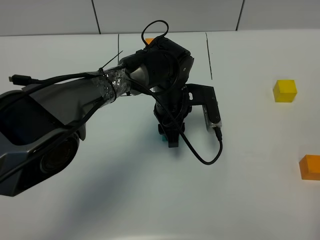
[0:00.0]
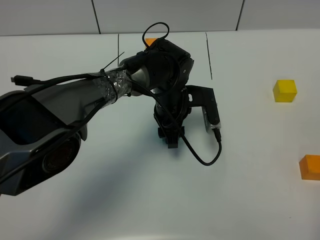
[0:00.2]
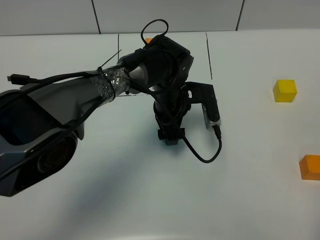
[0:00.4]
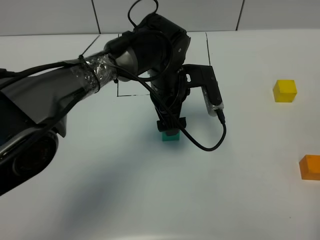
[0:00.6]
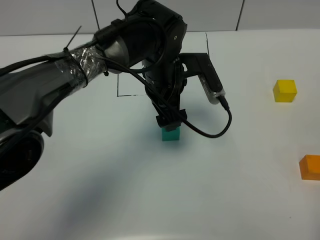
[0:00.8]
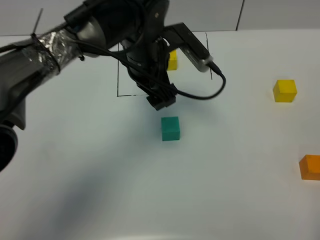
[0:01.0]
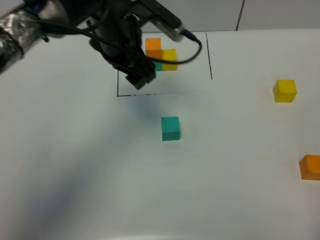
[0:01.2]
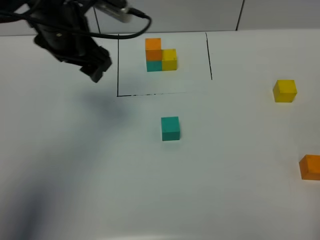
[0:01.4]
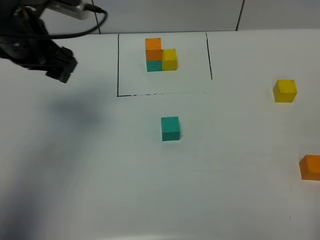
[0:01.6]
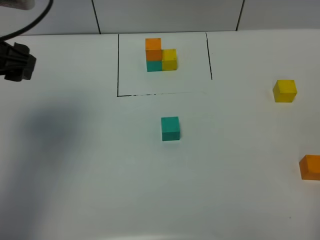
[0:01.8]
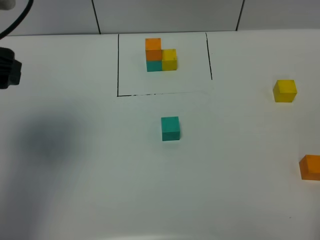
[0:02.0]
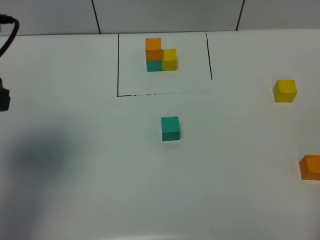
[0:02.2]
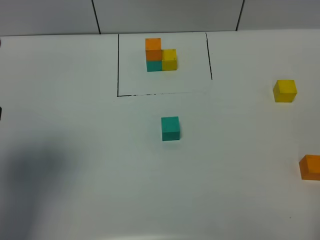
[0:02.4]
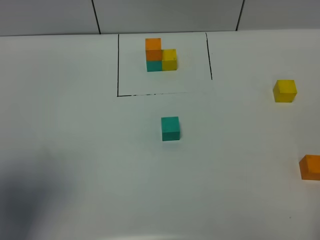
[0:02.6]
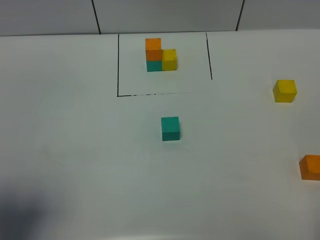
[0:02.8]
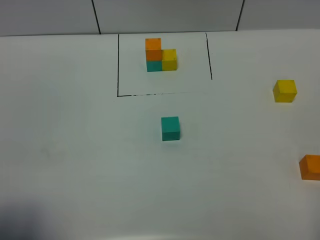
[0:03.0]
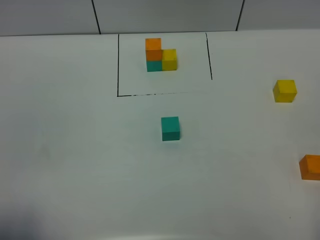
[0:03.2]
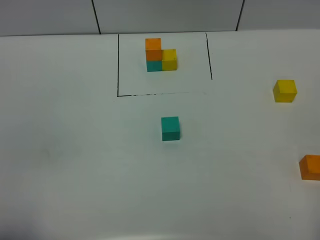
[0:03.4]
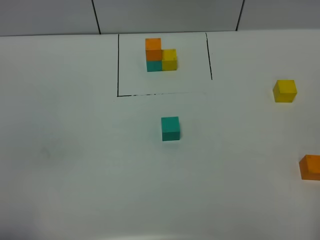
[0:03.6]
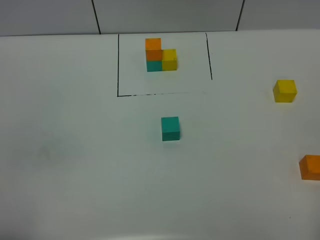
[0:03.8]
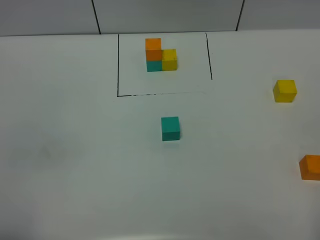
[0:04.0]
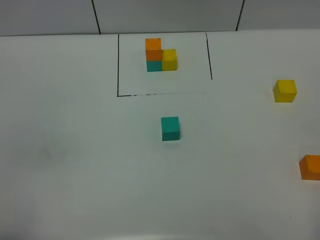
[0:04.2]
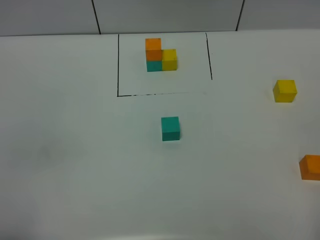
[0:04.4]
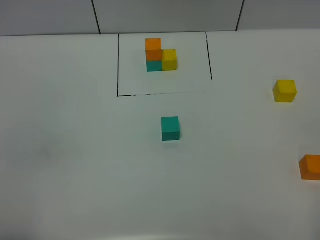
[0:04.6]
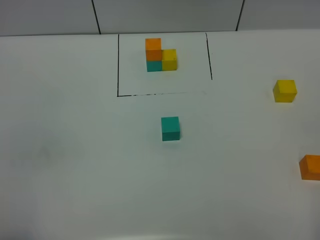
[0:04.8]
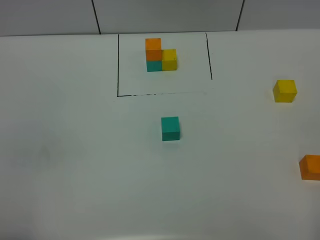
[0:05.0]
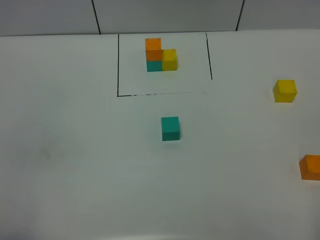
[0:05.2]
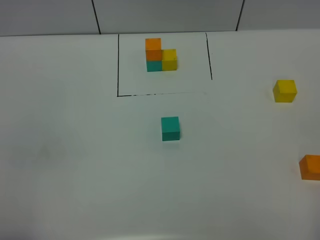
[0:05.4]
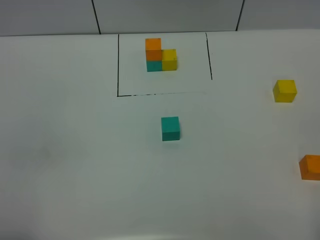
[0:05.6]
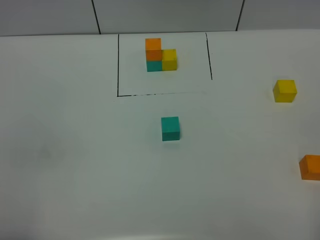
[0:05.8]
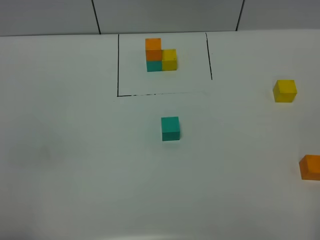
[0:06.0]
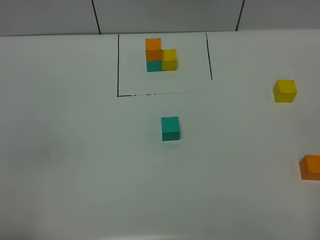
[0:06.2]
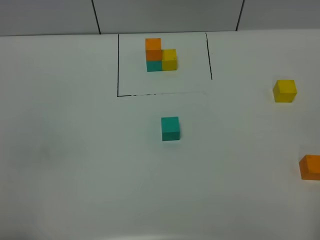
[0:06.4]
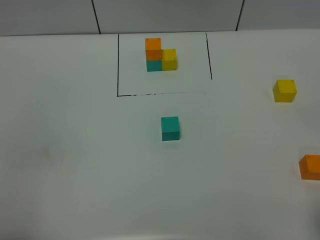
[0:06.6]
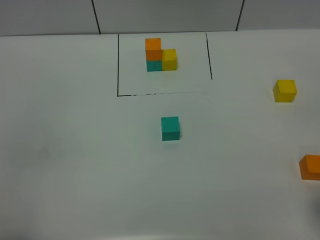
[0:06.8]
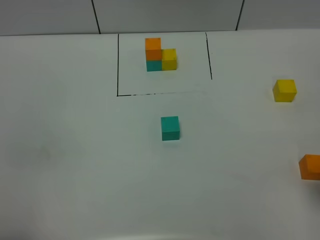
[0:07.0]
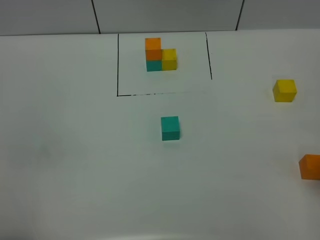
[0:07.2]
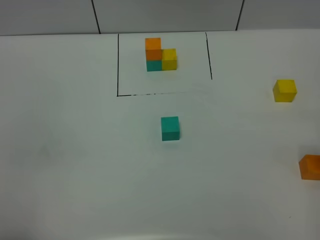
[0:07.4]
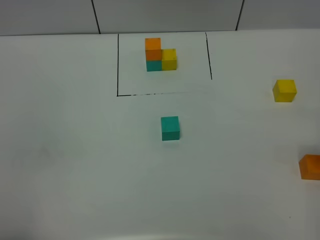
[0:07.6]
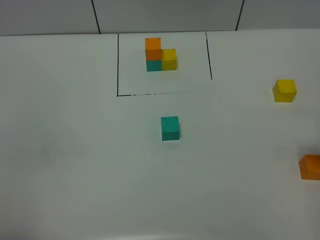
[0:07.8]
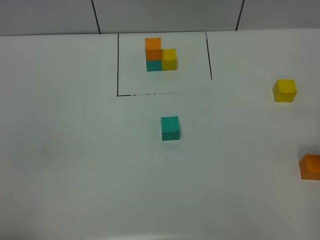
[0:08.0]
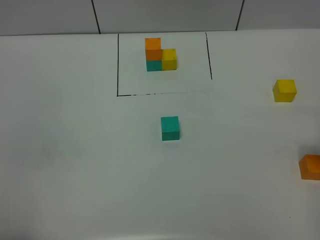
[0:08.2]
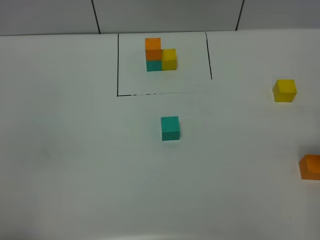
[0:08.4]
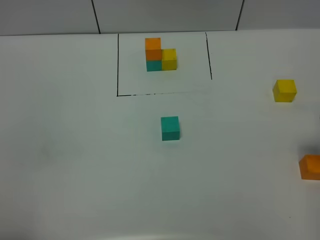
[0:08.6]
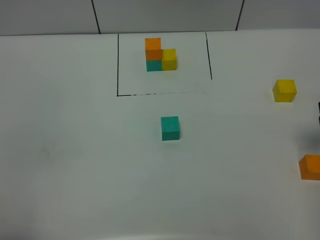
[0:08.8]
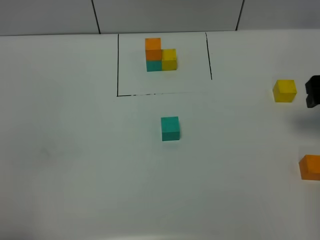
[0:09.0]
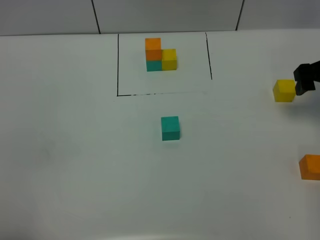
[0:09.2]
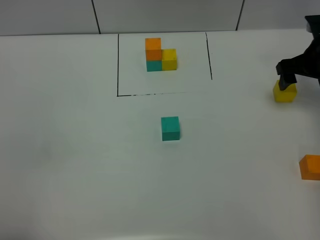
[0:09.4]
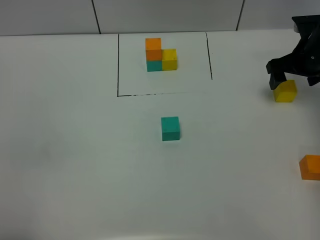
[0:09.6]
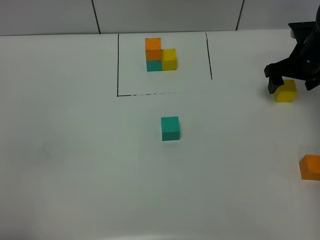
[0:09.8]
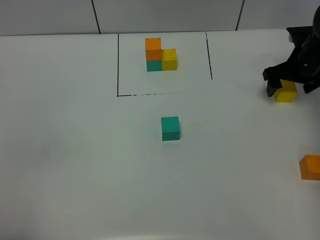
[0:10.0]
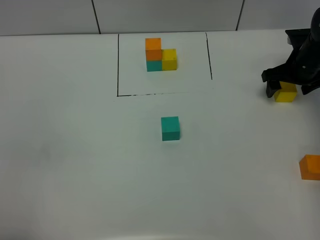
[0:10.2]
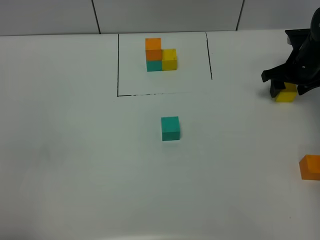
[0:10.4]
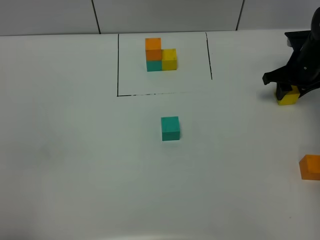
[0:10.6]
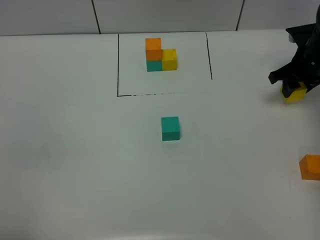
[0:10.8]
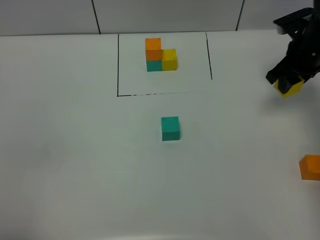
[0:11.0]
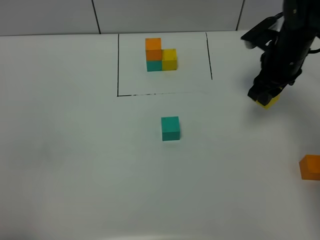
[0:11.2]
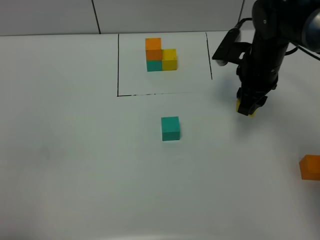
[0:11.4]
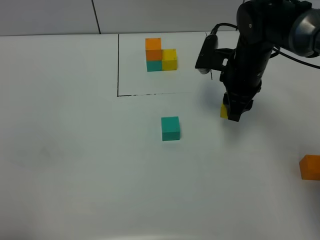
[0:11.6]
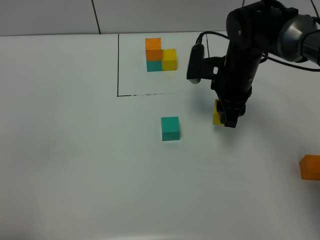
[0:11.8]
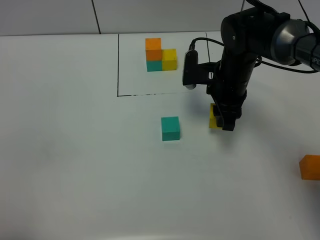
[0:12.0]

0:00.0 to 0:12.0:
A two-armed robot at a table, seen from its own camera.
Task of the whole recording: According to the building block template in front, assemble the scattered blocks together.
0:00.0 to 0:01.6: The left gripper moves to the left and upward, some 30 cm, and opens its fingers.
0:01.6 to 0:03.0: The left gripper is displaced backward by roughly 30 cm.
0:03.0 to 0:04.4: The left gripper heads backward, covering about 5 cm, and closes.
0:07.6 to 0:09.0: The right gripper moves forward, approximately 10 cm.
0:09.0 to 0:10.4: The right gripper goes approximately 15 cm forward and downward, and closes.
0:10.4 to 0:12.0: The right gripper shifts approximately 20 cm to the left and backward.

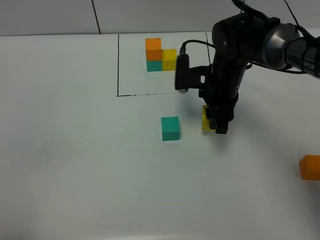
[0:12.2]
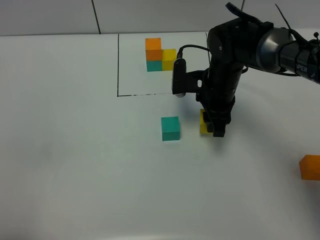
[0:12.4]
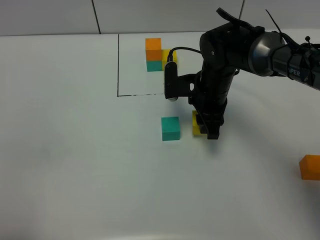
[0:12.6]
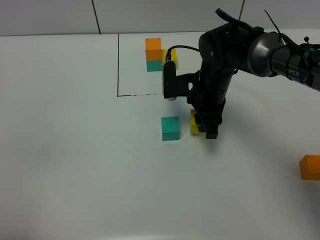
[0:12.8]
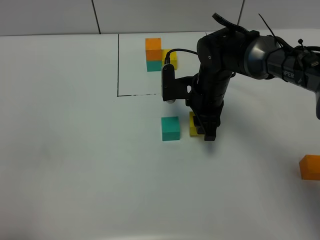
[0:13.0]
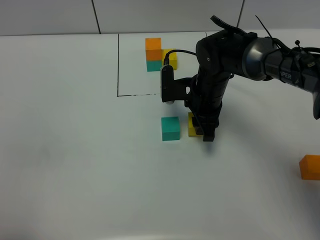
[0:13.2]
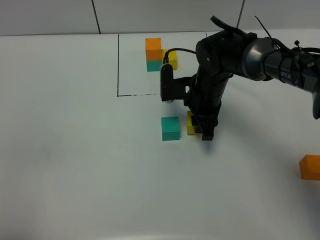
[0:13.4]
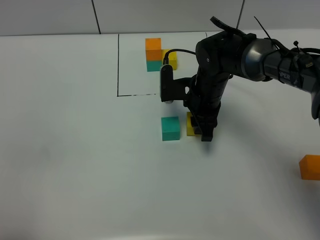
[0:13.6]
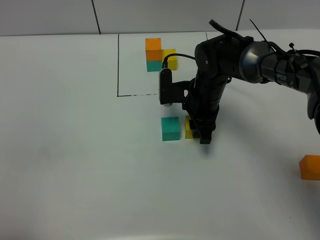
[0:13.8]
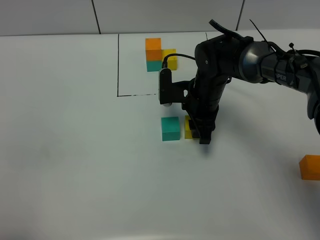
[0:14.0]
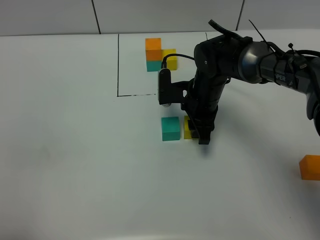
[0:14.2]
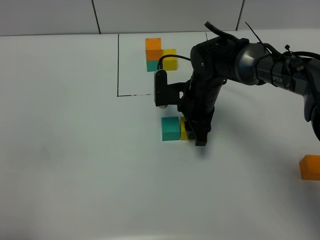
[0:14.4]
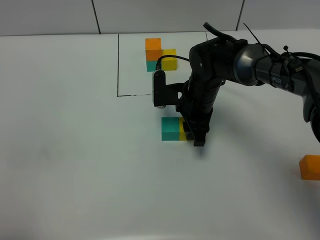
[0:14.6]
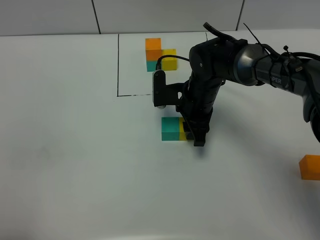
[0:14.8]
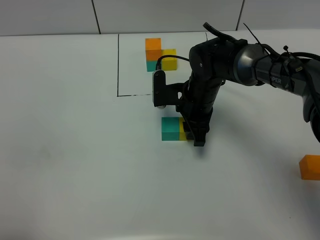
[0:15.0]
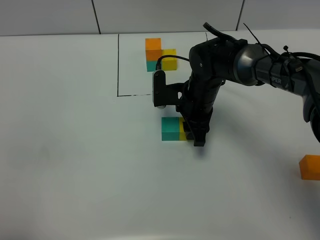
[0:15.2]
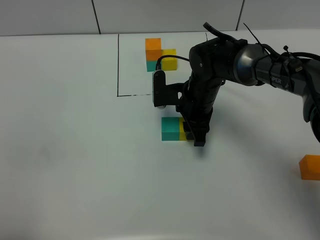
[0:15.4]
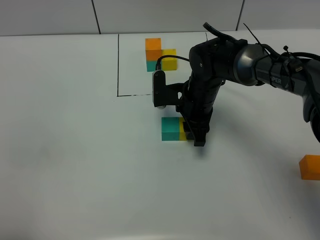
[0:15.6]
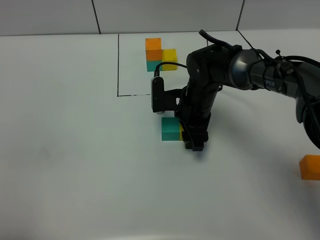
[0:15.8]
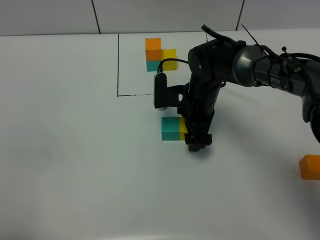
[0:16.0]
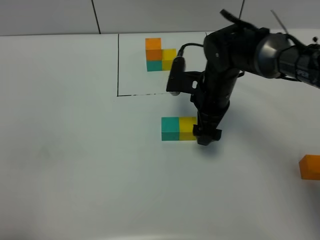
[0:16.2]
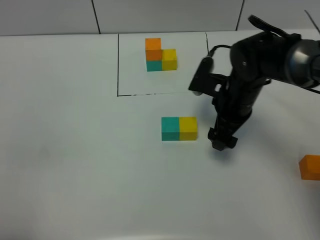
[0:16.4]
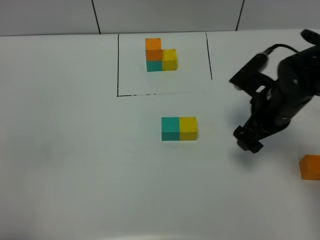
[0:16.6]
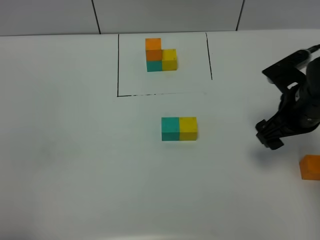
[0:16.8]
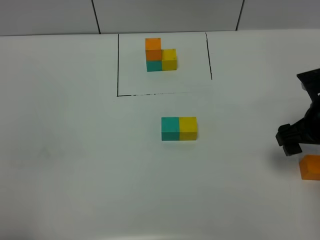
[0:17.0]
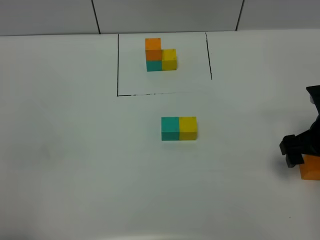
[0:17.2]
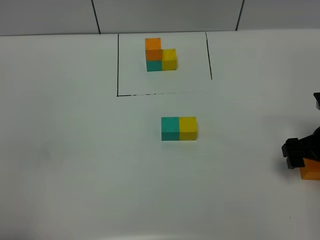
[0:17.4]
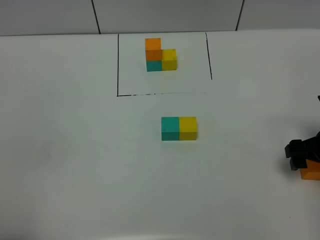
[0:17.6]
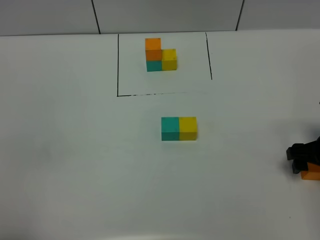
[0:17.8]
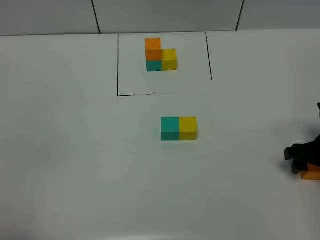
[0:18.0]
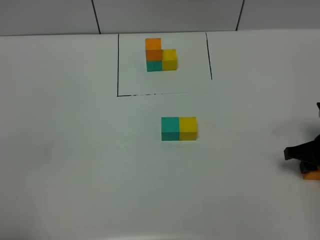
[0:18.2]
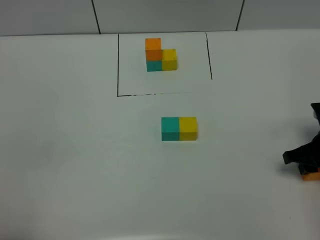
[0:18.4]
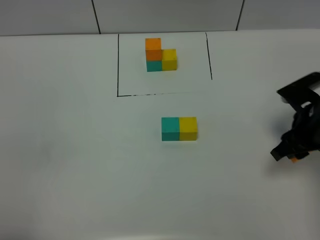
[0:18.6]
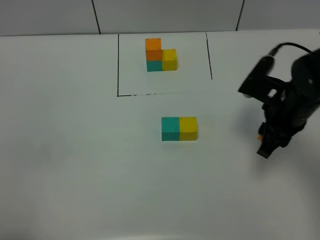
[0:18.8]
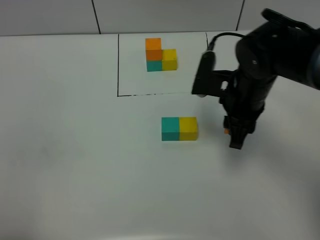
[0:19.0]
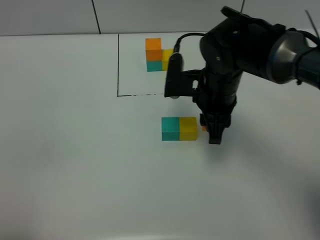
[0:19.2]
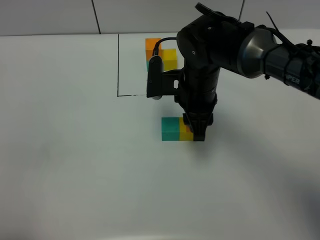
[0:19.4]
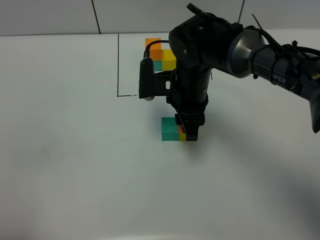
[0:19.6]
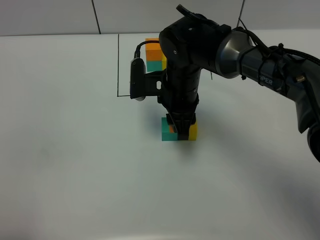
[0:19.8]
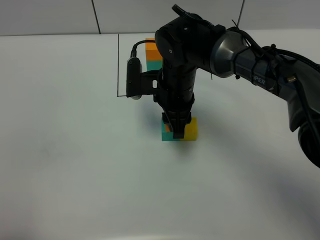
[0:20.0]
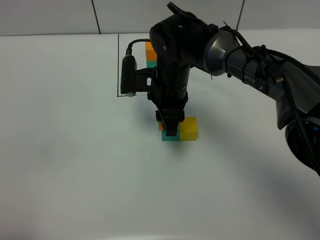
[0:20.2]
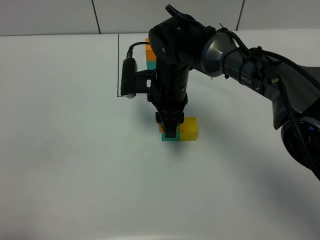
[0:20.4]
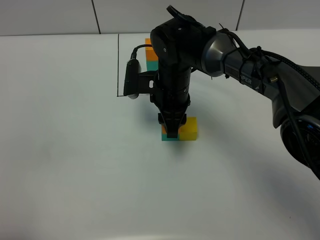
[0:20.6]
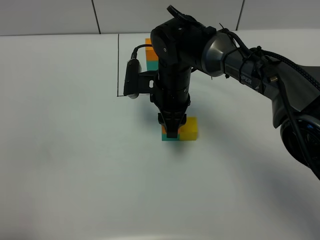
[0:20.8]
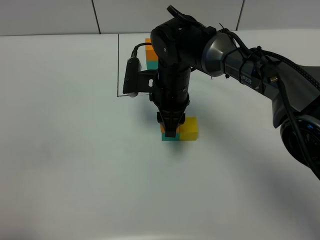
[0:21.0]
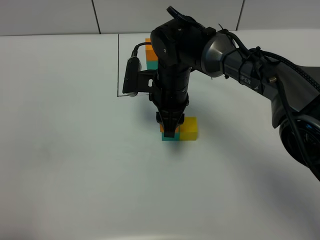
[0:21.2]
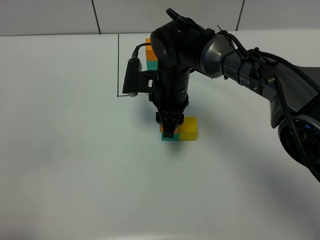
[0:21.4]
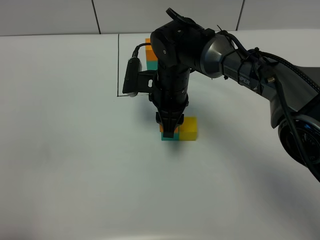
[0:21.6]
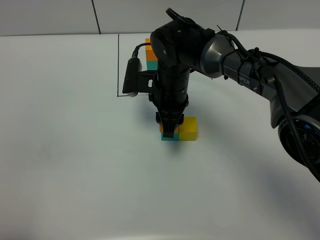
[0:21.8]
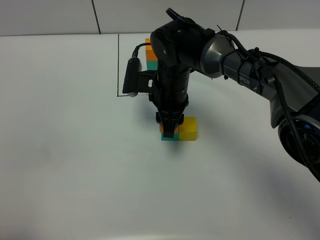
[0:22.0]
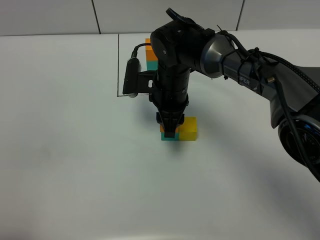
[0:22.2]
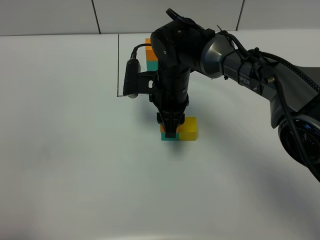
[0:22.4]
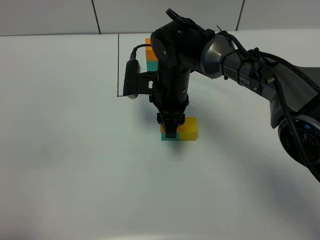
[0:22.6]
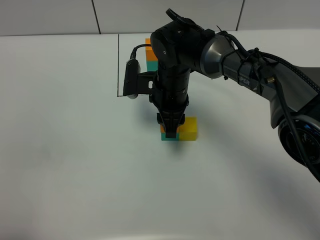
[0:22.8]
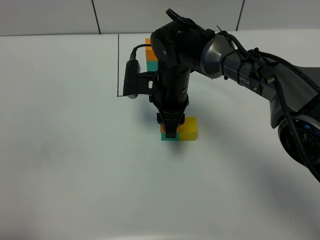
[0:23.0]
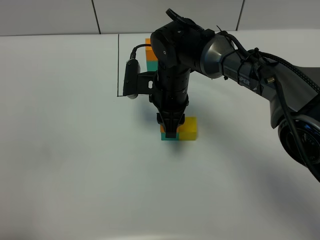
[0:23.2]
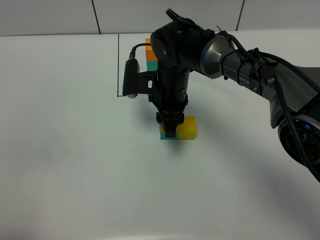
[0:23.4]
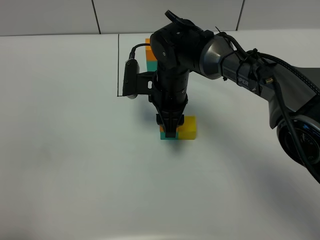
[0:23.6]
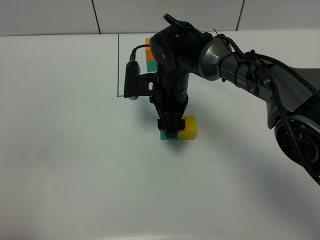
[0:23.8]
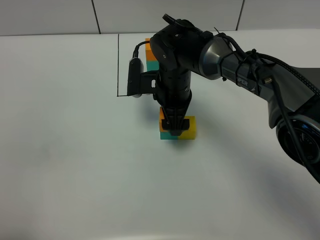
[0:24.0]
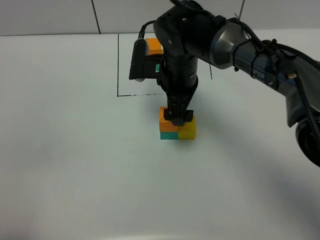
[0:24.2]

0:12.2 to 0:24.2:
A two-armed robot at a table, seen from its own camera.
Task of the whole recording: According to the building block template in front, assemble the scattered blocks together.
Step, 0:12.2 to 0:15.8: Put the yellow build block on the right of the green build block.
Step, 0:16.0 to 0:23.8: Put the orange build block on the green build block.
0:12.2 to 0:13.8: The grippers move only a little.
0:13.8 to 0:15.2: Both grippers stay put.
0:15.2 to 0:16.6: The right gripper heads to the right, backward and upward, covering some 15 cm, and opens up.
0:16.6 to 0:18.2: The right gripper moves to the right and downward, some 15 cm, and closes.
0:18.2 to 0:19.8: The right gripper travels to the left by roughly 30 cm.
0:19.8 to 0:21.2: The grippers move only a little.
0:21.2 to 0:22.6: Neither gripper changes place.
0:22.6 to 0:24.2: The right gripper opens.
